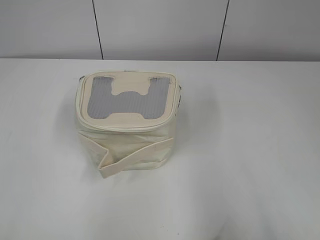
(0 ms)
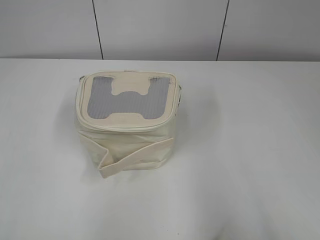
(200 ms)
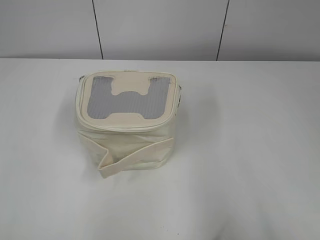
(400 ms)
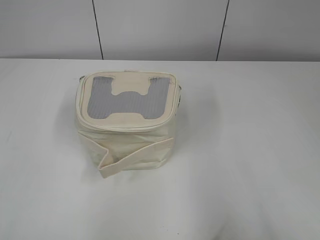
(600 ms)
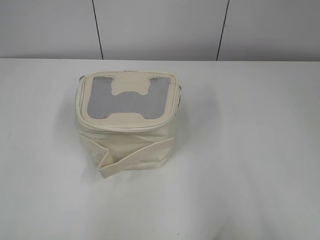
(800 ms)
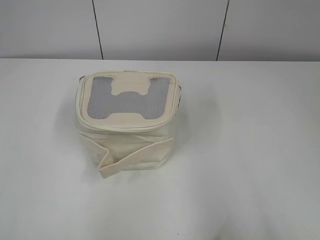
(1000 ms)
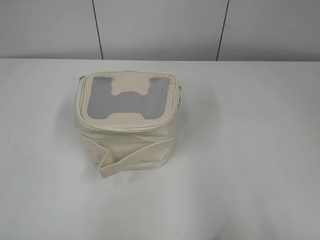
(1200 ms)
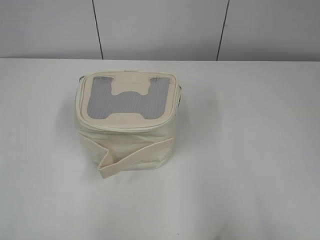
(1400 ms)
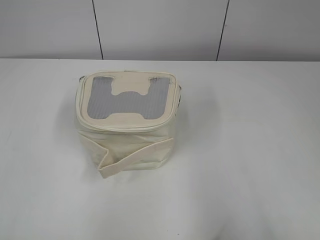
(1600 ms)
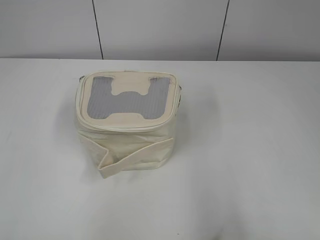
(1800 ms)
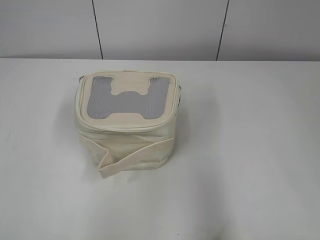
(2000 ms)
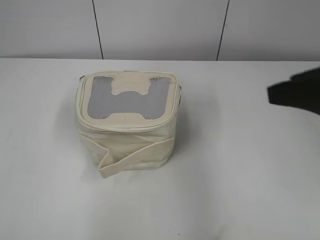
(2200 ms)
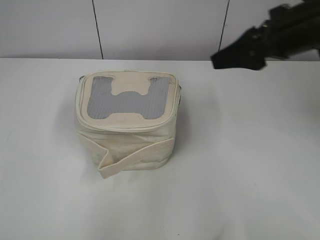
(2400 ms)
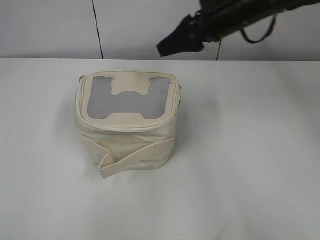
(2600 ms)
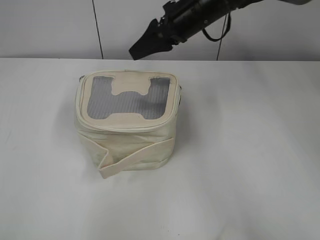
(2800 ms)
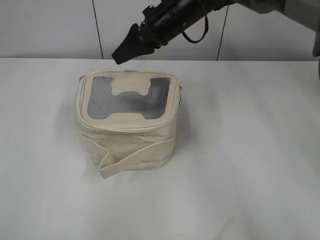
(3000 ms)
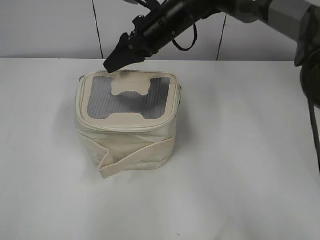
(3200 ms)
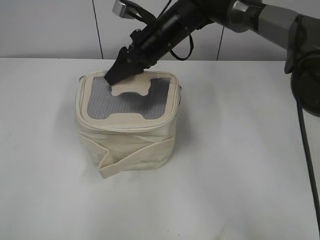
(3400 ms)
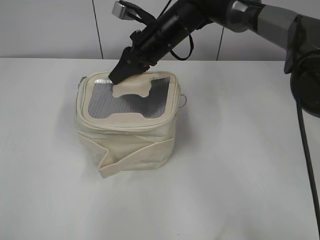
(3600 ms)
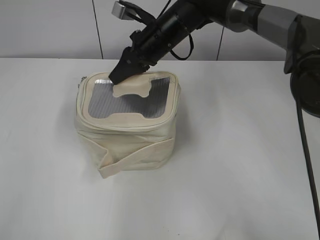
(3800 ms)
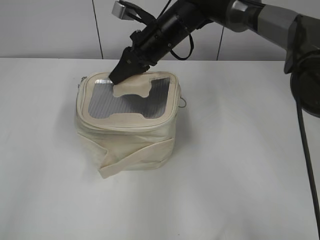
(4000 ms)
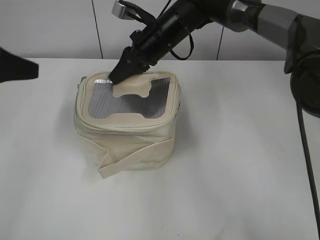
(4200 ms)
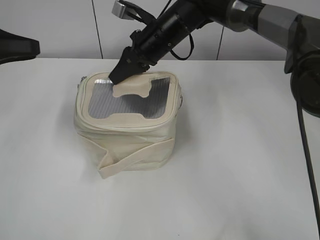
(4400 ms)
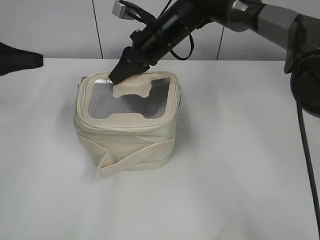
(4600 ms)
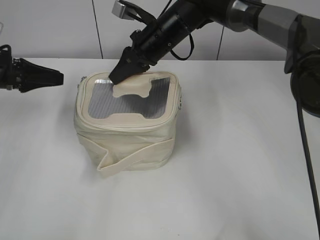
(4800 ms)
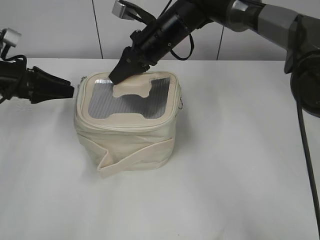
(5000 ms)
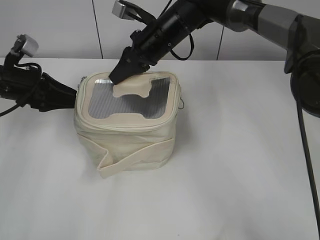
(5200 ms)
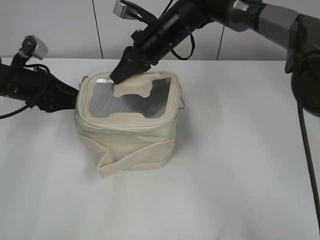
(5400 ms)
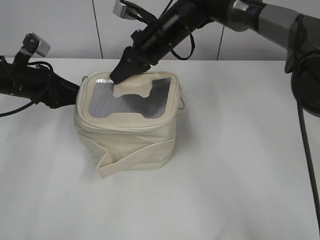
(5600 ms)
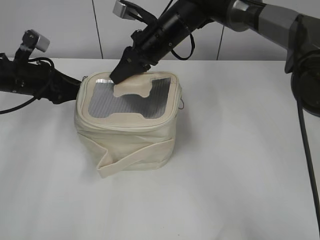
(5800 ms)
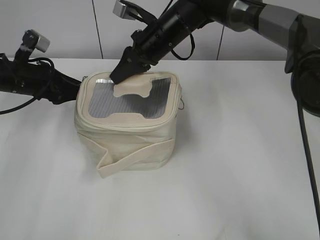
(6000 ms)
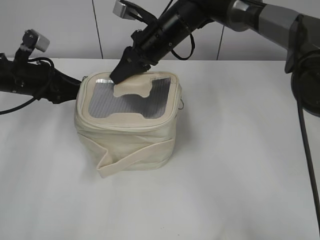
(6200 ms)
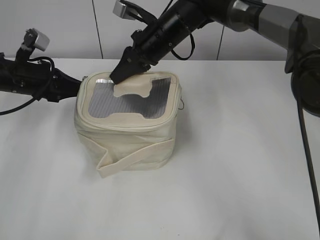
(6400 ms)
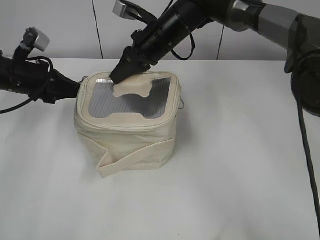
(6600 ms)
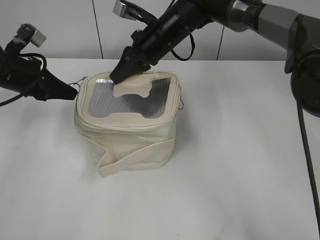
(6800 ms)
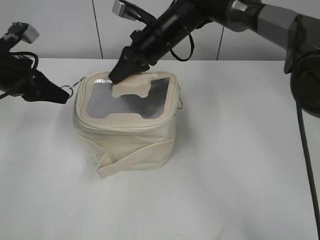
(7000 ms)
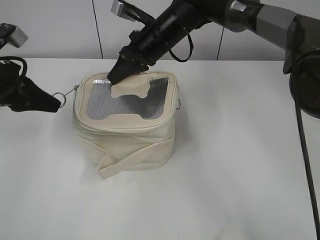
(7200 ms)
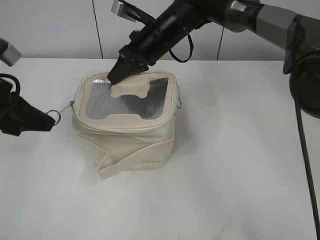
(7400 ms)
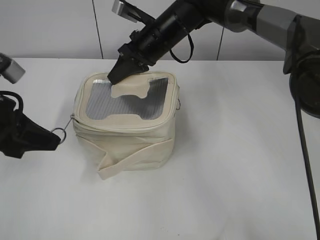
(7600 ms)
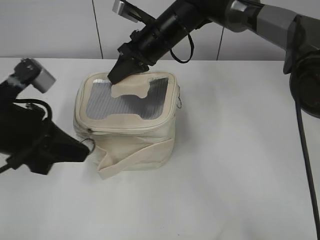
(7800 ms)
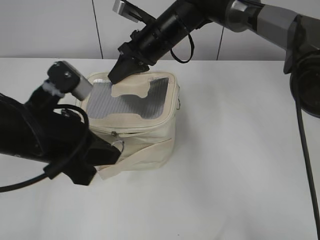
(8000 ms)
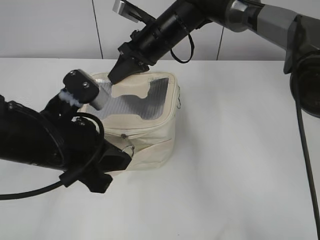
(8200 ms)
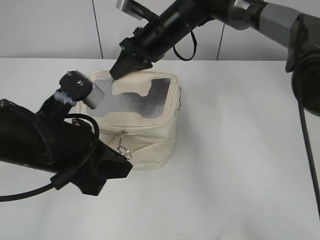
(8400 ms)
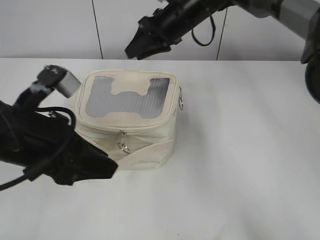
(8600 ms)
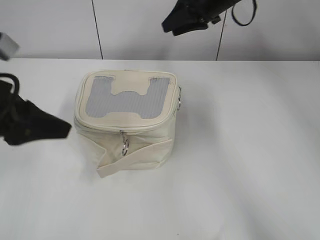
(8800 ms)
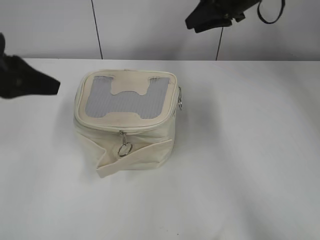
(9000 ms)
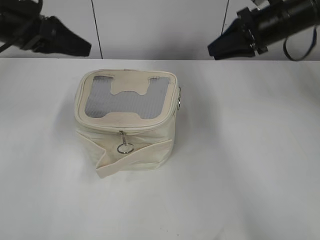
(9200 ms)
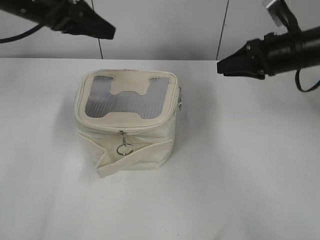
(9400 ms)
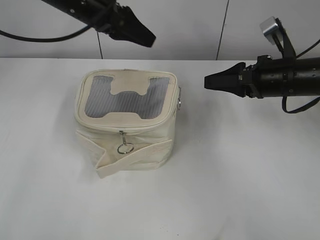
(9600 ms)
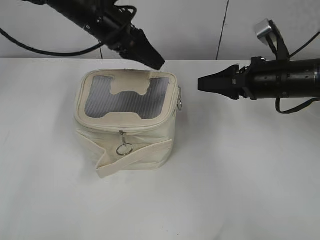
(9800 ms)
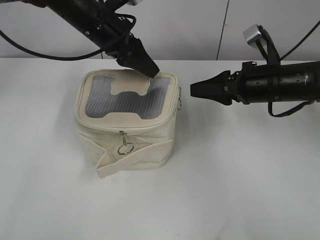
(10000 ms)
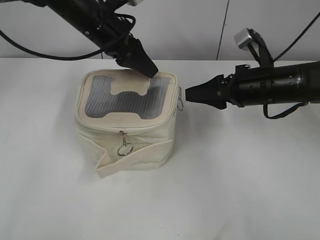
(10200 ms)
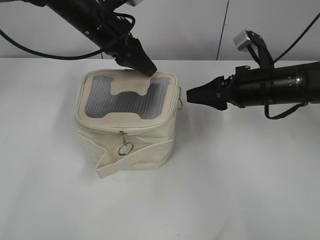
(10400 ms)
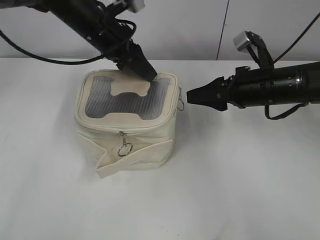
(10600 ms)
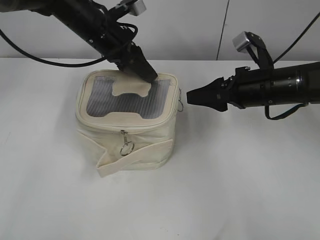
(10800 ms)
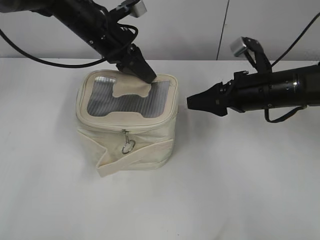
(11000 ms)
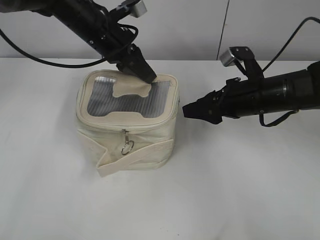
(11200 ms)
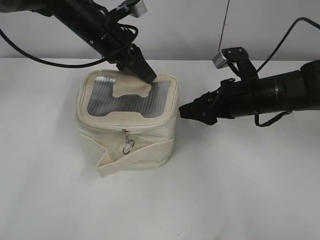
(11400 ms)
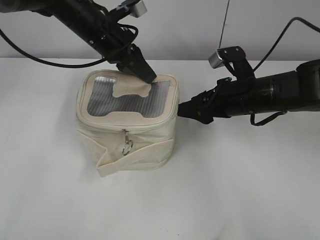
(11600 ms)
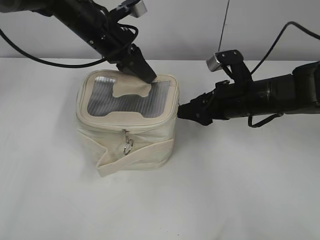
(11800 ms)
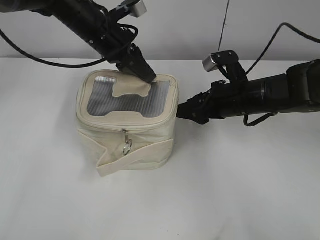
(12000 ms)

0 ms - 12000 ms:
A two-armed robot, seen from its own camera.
Step, 0 ms - 8200 ms: Zip up the bag with your left hand.
1600 ms - 3000 ms: The right gripper shifts approximately 50 cm forward and to the left.
3000 ms - 4400 ms: The left gripper travels forward by some 30 cm, while the right gripper moves roughly 5 cm, and closes its fingers.
4400 ms - 6000 ms: The left gripper travels downward and forward by roughly 15 cm.
6000 ms - 7600 ms: The left gripper heads backward, covering about 15 cm, and closes.
7600 ms - 9000 ms: The right gripper shifts roughly 15 cm to the right and upward, and opens, while the left gripper shifts roughly 5 cm upward, moves roughly 10 cm to the right and comes back, and opens.
9000 ms - 10400 ms: The right gripper travels backward and downward by roughly 20 cm. The left gripper travels forward and to the right by about 25 cm, and opens.
10400 ms - 12000 ms: The left gripper closes up.

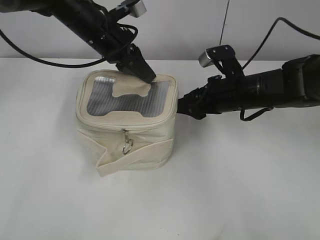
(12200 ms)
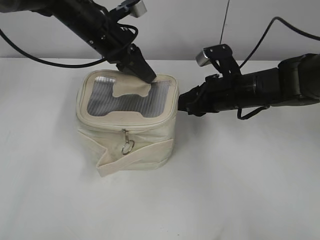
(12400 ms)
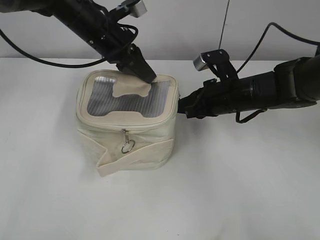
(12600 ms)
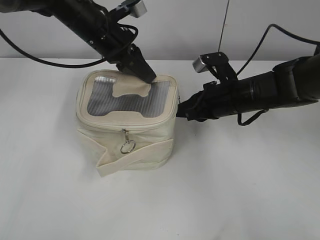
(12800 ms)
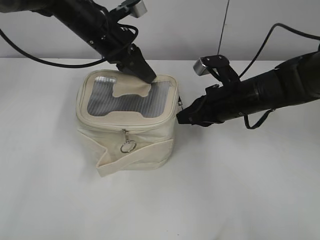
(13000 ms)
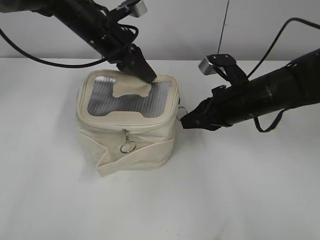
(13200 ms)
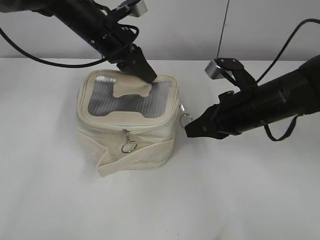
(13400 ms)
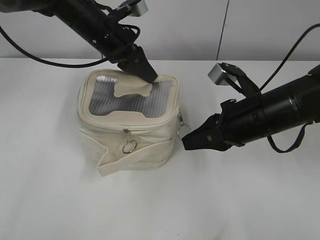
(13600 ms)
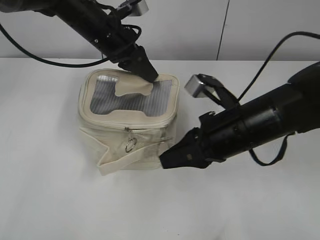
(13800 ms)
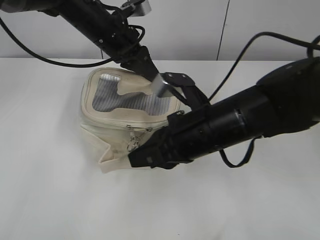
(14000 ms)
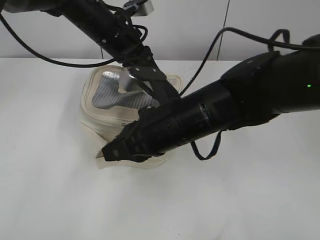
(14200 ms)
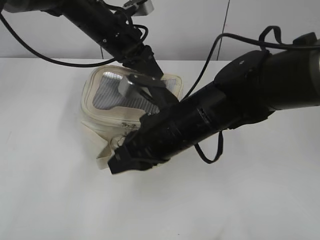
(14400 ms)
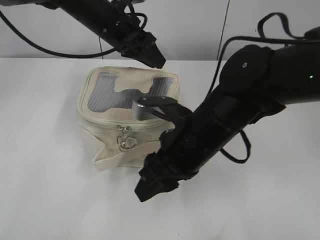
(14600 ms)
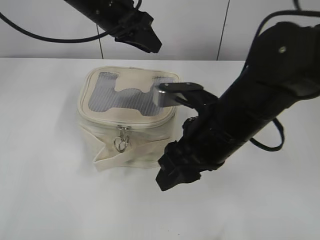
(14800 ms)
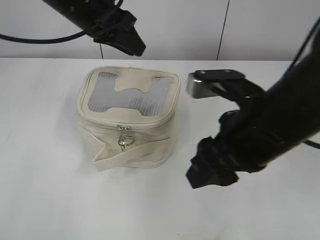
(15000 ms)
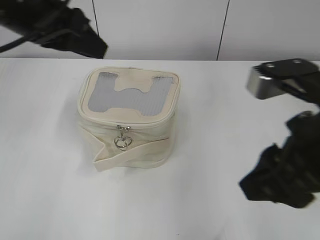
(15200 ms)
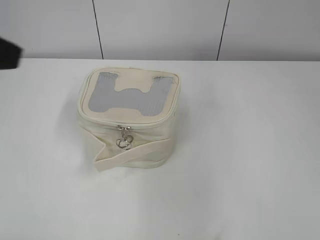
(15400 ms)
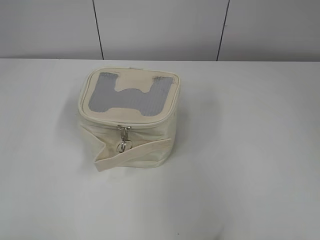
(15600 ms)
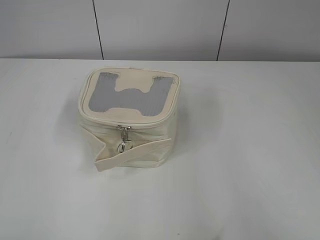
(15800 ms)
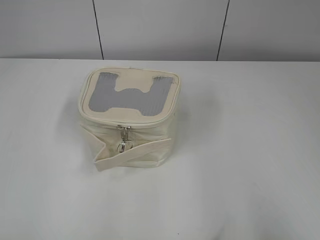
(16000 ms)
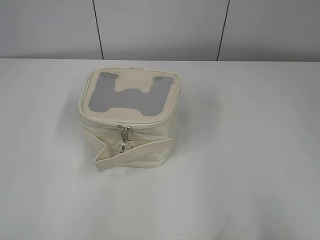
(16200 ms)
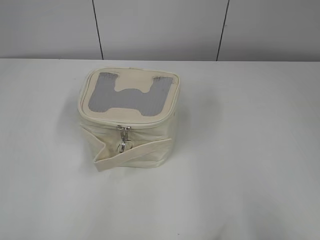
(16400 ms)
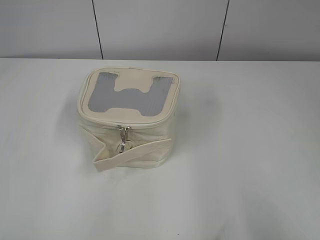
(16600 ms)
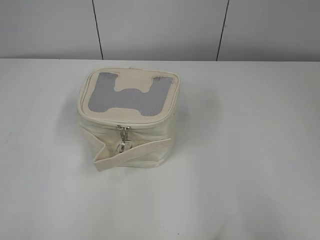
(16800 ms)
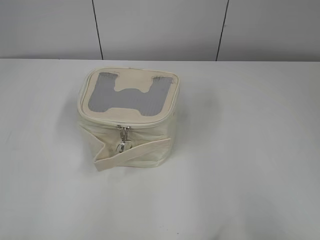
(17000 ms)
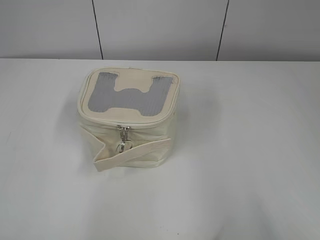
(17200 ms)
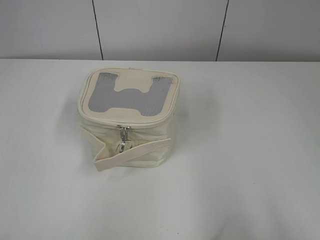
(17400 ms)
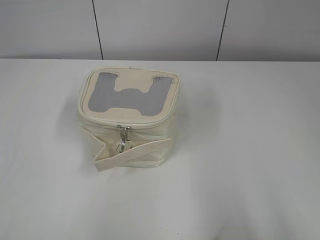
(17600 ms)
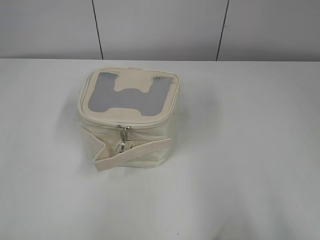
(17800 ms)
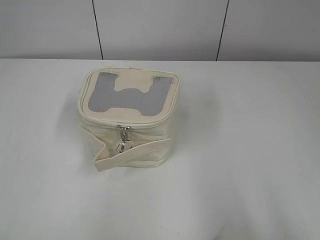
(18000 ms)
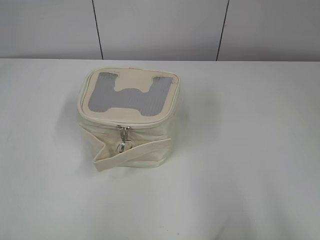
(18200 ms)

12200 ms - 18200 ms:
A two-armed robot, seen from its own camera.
Step, 12200 ms - 14400 ms: Zip up the bag with your right hand.
12200 ms - 13800 ms: The right gripper goes roughly 10 cm backward, and closes its fingers.
13800 ms - 15200 ms: The left gripper moves backward, upward and to the left, about 15 cm, while the right gripper shifts roughly 15 cm upward and backward, goes to the left and returns, approximately 10 cm each way, and opens up.
15200 ms - 16600 ms: The right gripper travels backward and to the right by roughly 25 cm; the left gripper moves backward and to the left, approximately 35 cm.

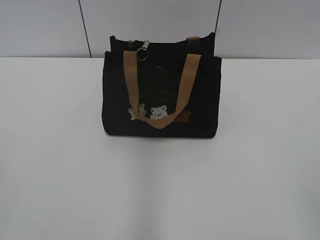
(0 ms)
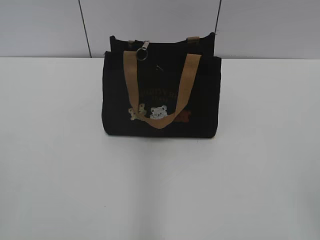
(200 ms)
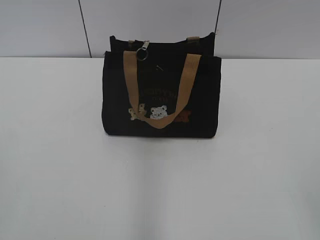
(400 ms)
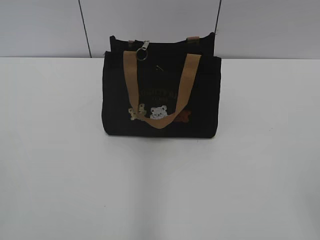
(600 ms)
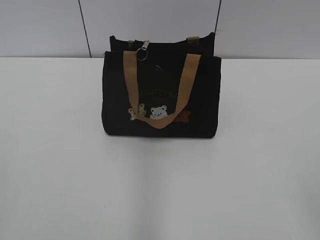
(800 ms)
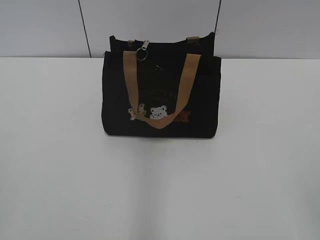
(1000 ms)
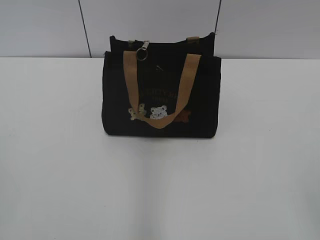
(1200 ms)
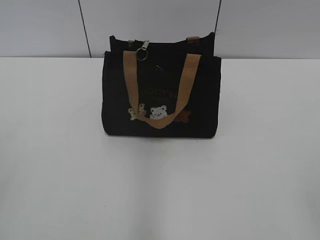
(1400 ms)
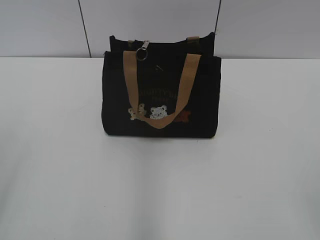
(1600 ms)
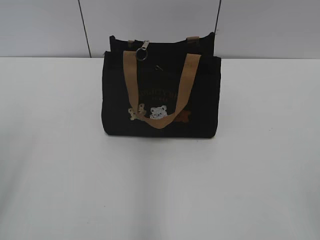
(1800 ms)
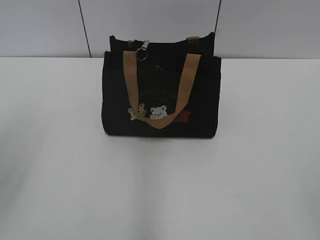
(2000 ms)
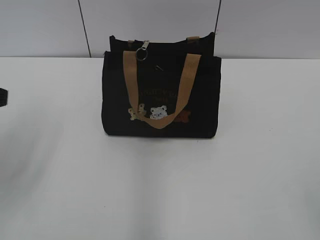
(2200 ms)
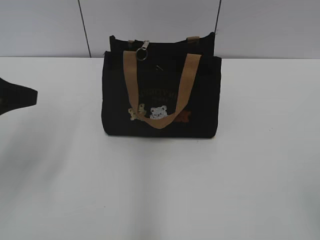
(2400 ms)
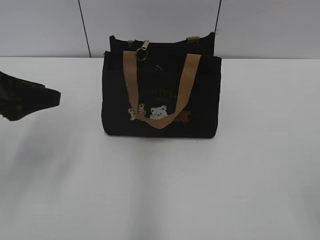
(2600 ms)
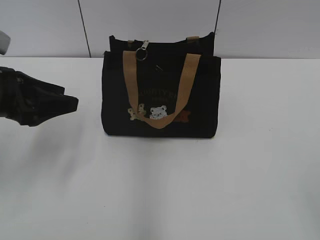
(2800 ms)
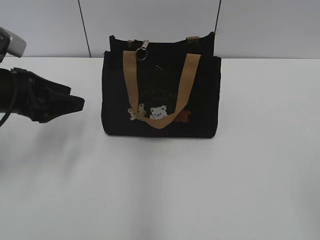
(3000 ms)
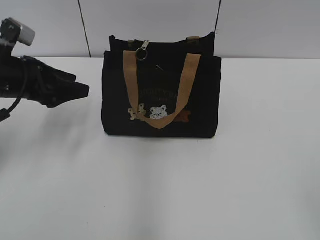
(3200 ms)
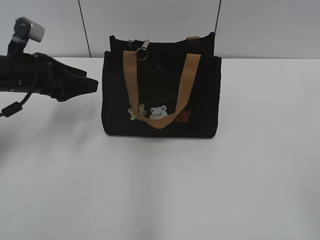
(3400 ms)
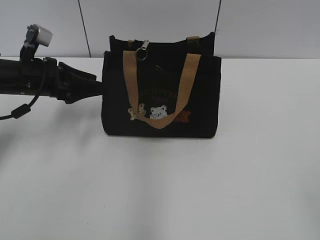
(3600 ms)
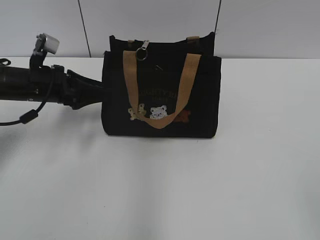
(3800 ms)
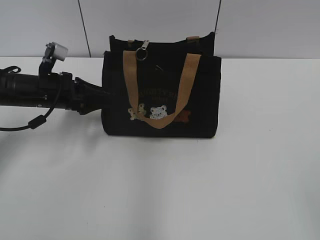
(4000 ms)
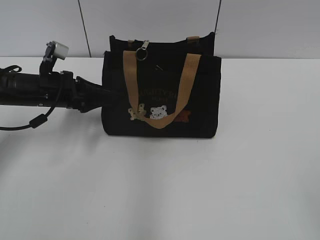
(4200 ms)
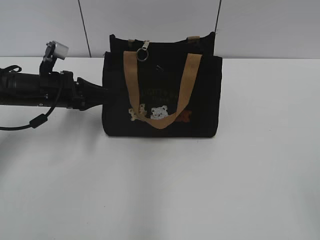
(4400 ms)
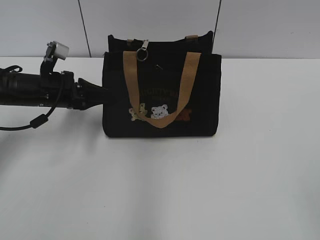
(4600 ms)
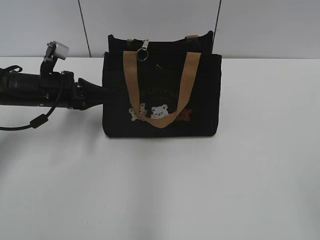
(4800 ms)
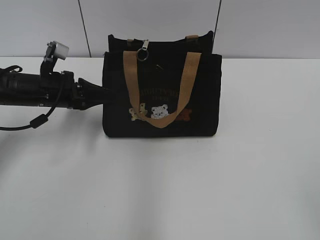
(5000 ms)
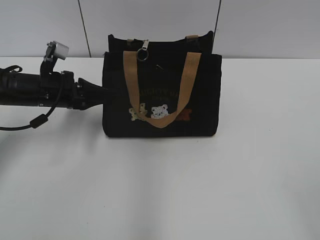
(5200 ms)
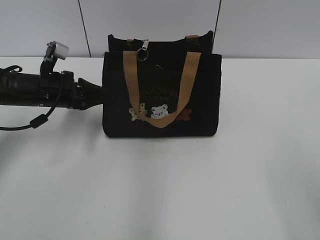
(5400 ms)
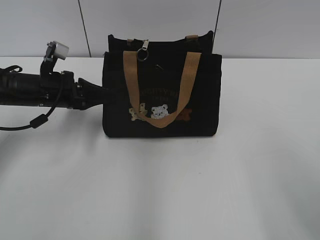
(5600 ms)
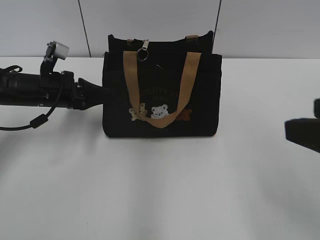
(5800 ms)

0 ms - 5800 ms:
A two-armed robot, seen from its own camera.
1400 ms - 2800 ms: The left gripper moves forward, approximately 25 cm.
2800 ms - 4400 ms: The left gripper travels forward and downward by roughly 15 cm.
4400 ms - 5800 ms: The left gripper closes its fingers, while the right gripper goes approximately 5 cm forward.
